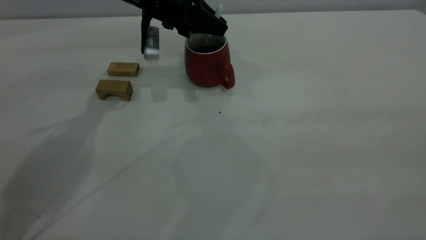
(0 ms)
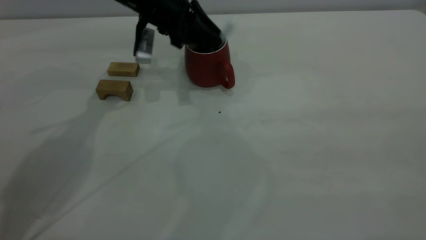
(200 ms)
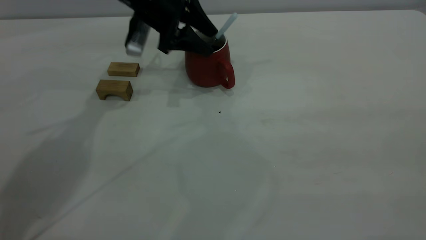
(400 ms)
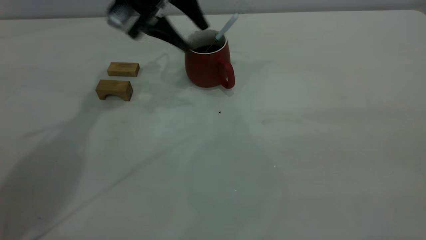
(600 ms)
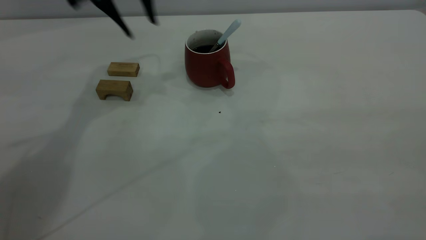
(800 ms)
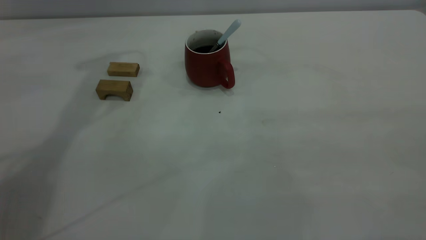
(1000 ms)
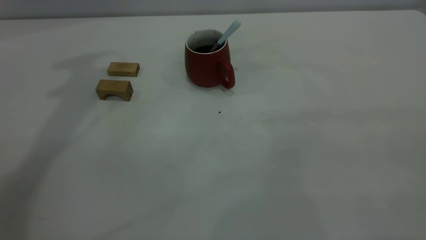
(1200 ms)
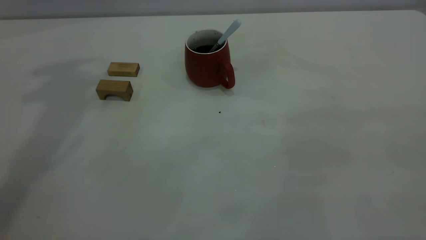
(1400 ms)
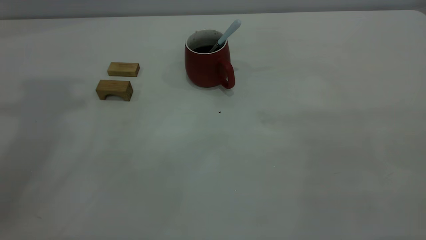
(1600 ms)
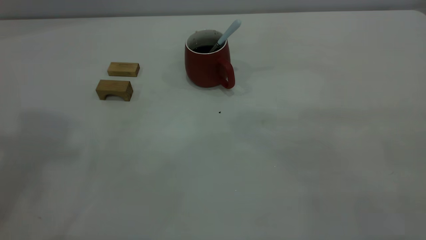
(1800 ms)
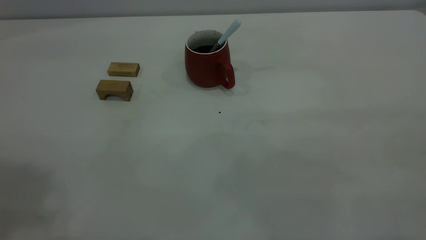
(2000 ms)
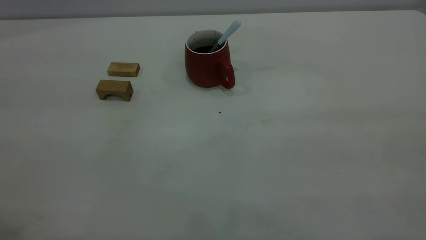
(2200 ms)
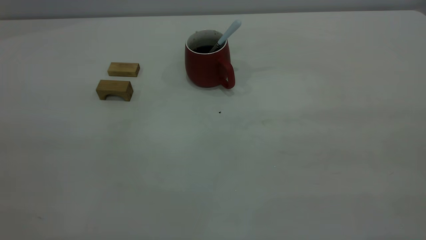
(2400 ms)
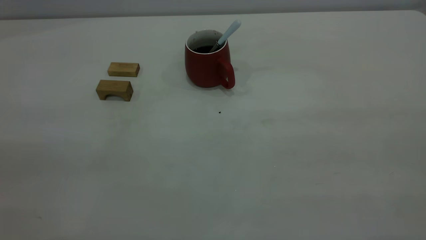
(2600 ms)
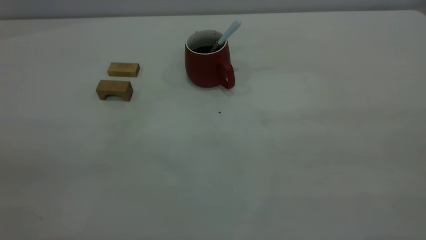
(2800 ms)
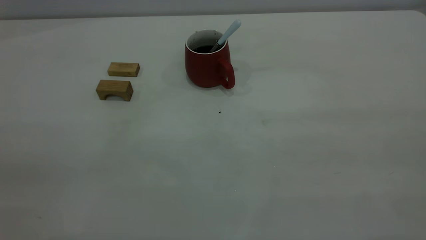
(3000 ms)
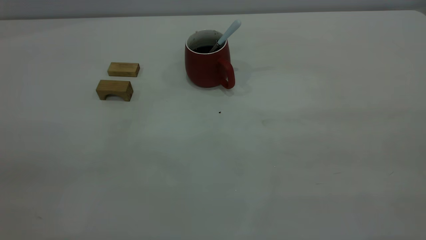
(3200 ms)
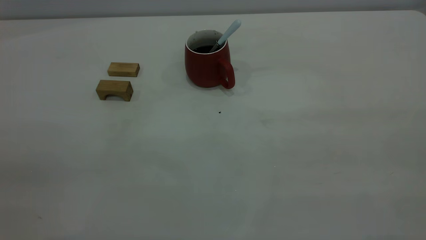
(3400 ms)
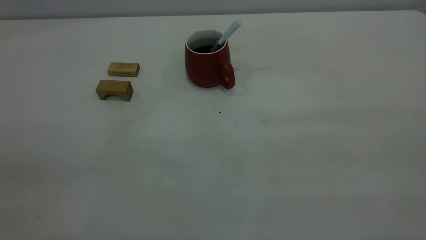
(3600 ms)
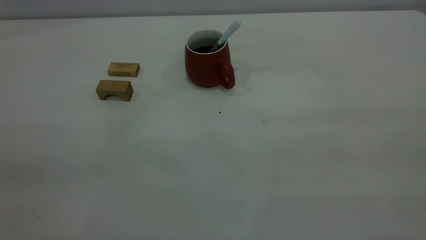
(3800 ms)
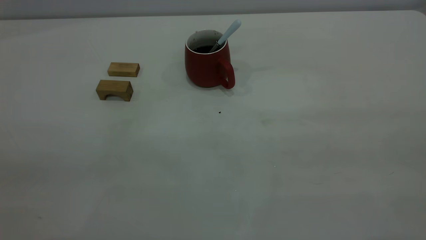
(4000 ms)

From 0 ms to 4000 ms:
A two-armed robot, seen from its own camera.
From 0 ms to 1400 ms: The left gripper goes approximately 35 cm upward, and opens up.

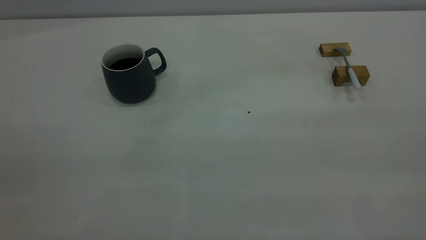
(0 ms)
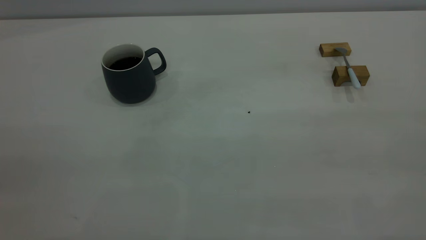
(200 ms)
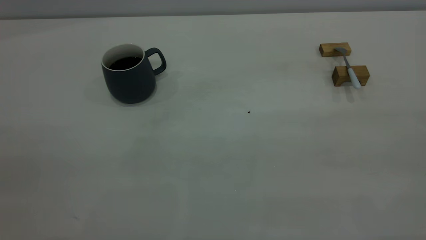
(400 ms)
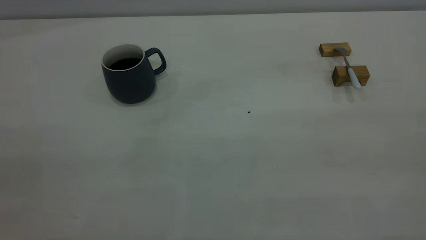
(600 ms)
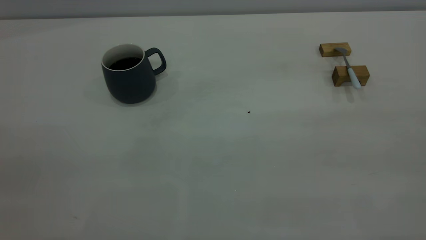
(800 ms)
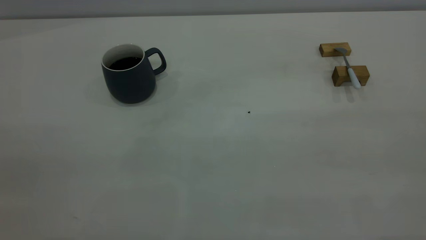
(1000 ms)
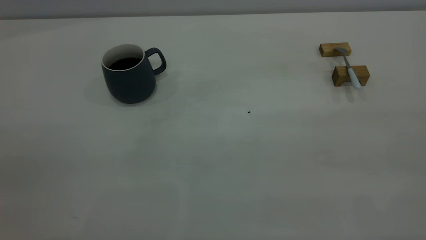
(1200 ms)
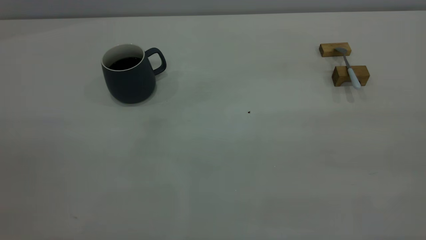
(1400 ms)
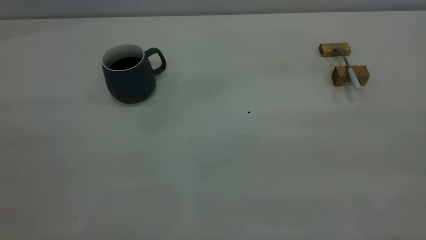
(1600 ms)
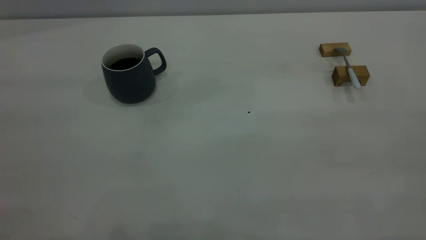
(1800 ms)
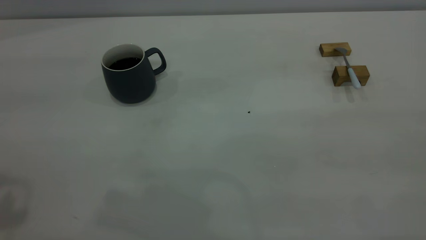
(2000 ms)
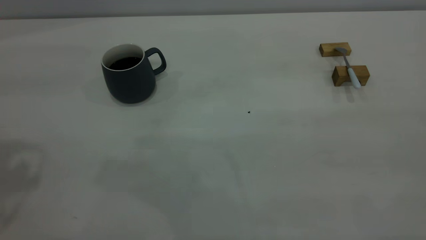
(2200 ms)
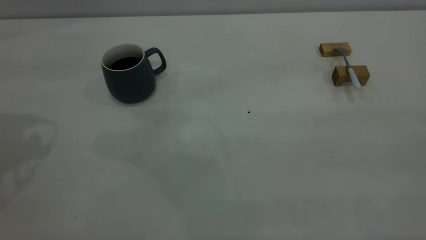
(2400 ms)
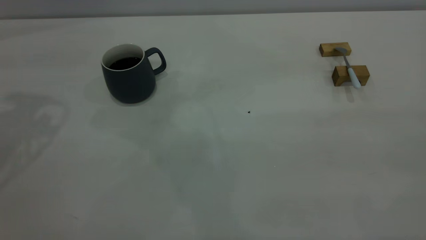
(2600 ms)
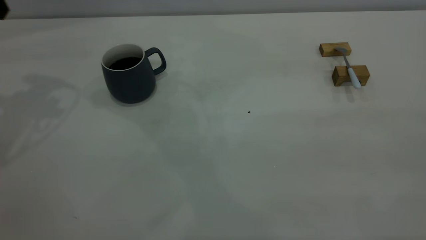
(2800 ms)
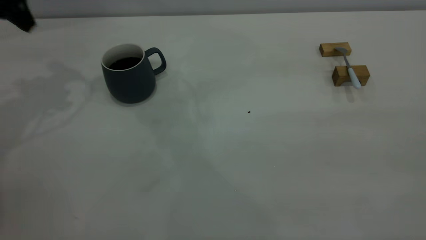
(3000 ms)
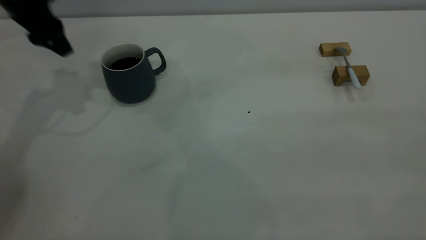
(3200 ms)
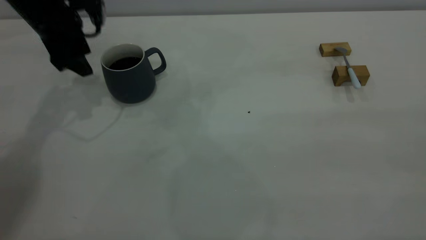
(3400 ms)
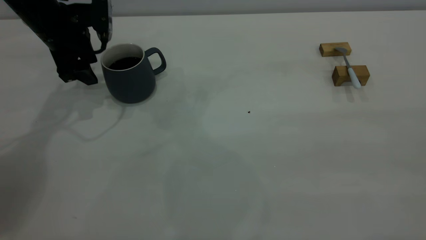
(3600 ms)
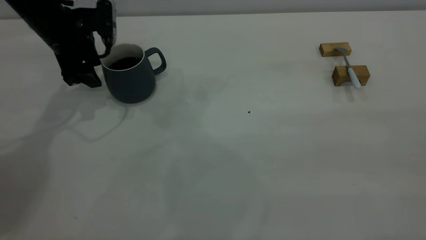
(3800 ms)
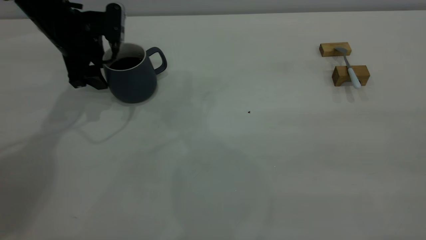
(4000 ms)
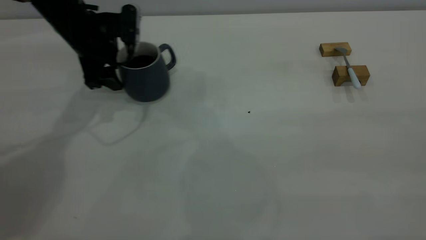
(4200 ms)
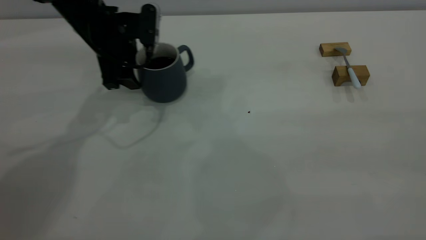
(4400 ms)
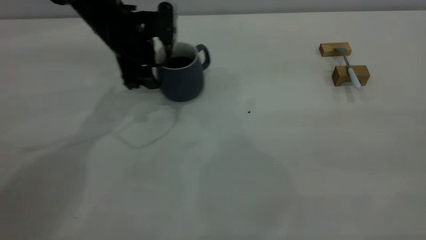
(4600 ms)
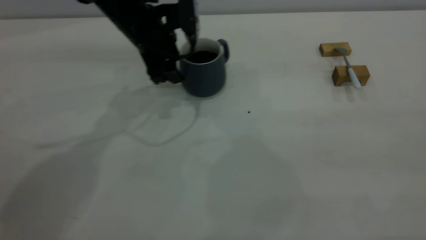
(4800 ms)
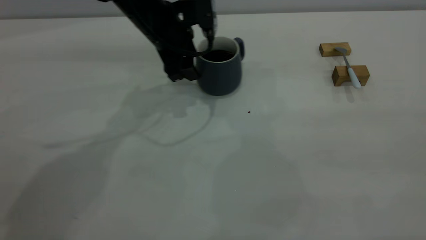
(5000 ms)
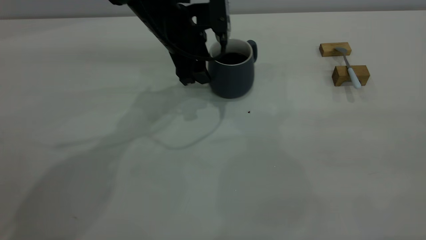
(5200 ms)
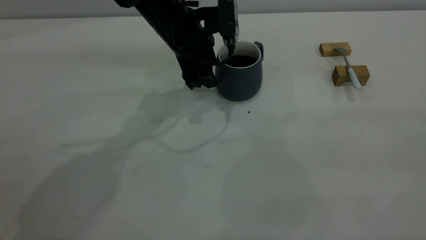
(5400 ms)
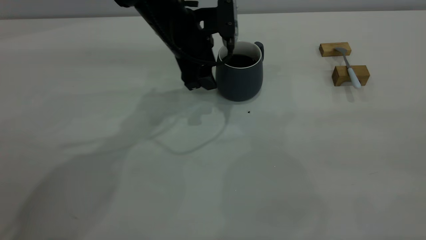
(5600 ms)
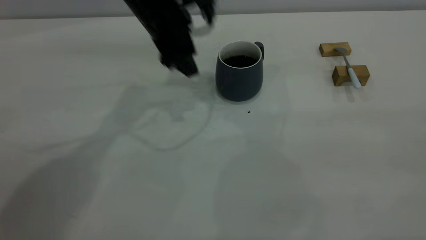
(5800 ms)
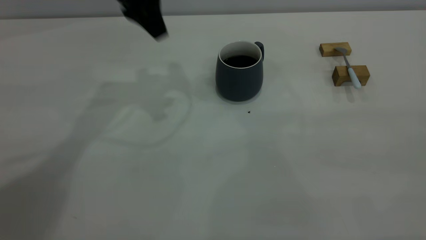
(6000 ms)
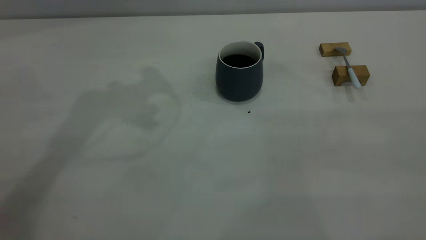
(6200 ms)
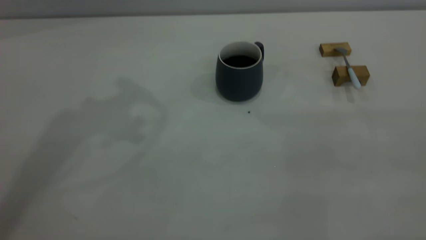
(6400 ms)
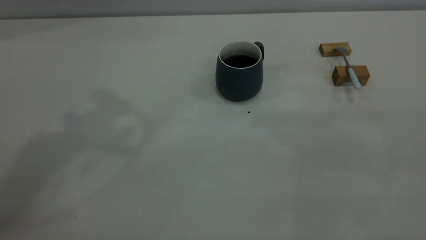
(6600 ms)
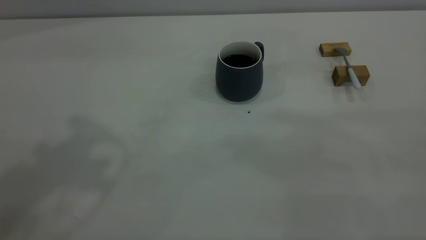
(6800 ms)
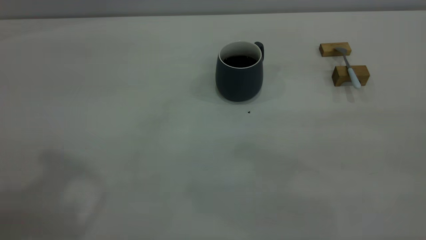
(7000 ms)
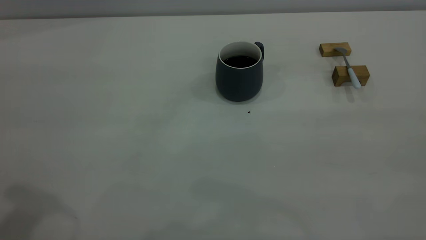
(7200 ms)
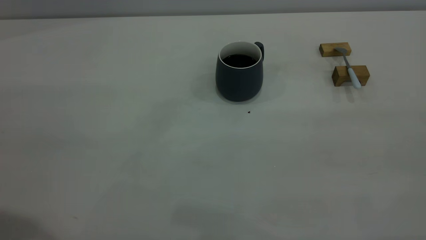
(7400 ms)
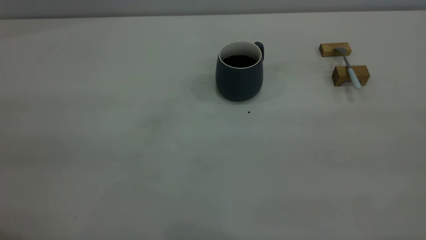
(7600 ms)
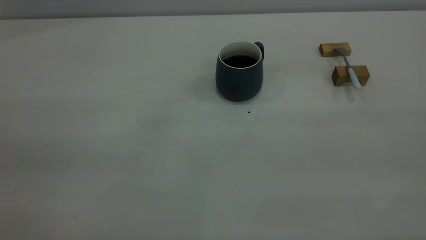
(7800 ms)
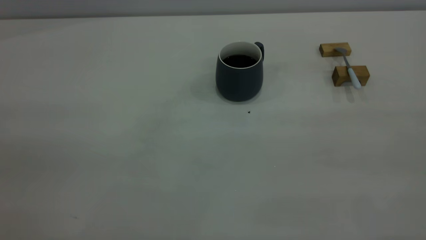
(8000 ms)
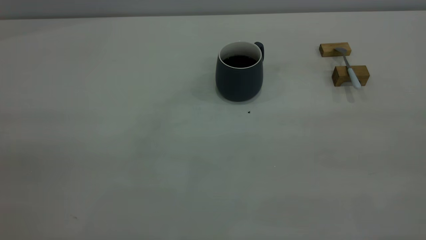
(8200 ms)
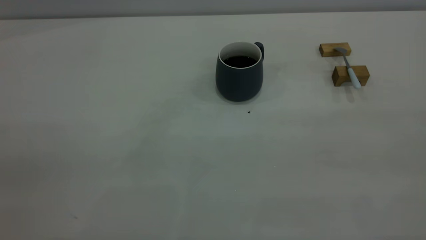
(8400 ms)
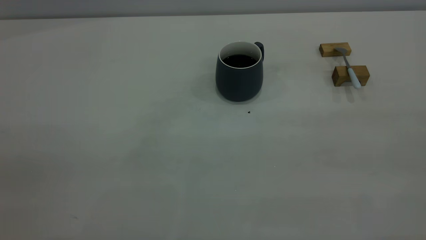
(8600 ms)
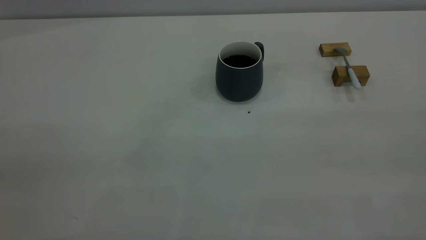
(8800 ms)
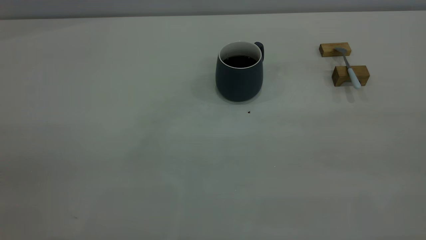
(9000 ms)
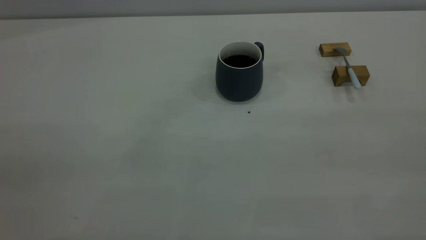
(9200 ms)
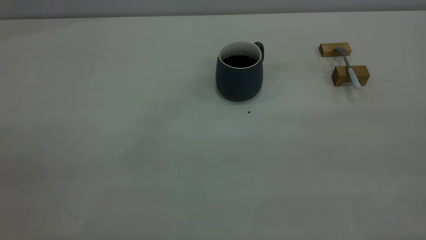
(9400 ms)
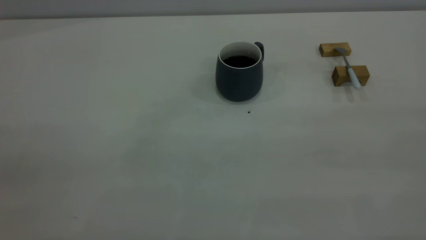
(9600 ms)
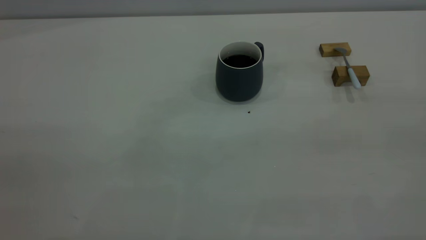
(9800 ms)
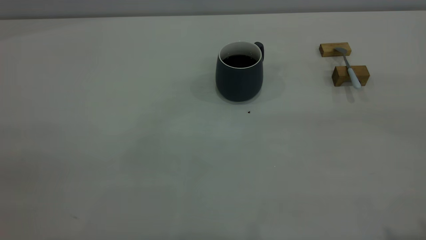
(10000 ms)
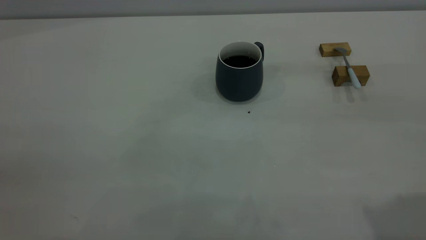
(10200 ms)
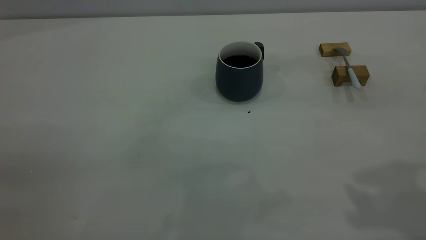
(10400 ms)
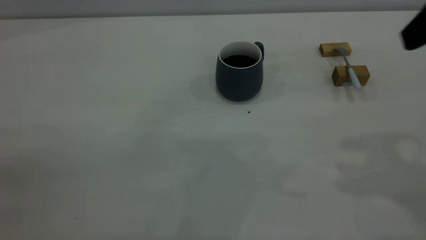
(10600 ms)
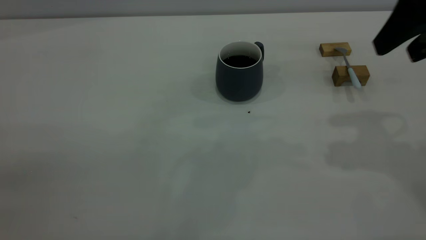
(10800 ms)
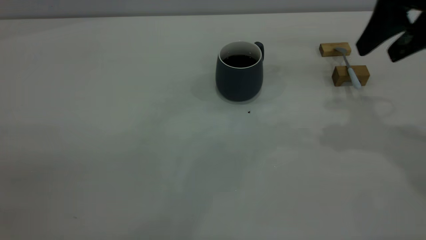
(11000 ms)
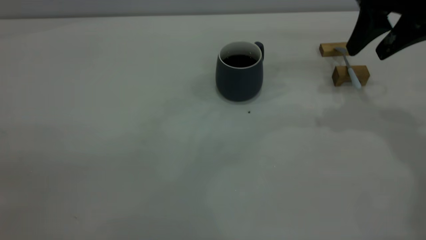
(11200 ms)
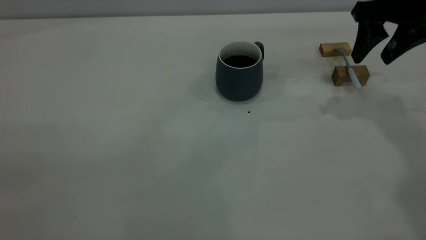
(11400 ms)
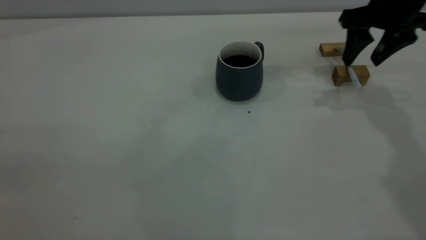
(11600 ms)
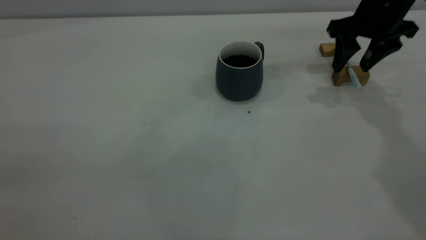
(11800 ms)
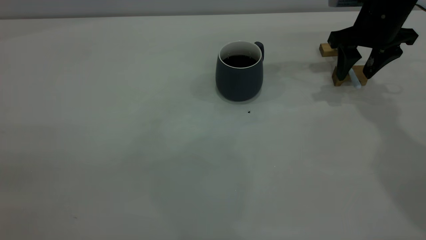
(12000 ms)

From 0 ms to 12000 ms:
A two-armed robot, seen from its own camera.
Step, from 0 ms to 5800 ms: Move the cup with coffee to the center of view.
From 1600 ms to 3000 ms: The left gripper goes about 35 cm forward.
From 3000 ms to 4400 ms: The left gripper travels to the right and downward by some 20 cm.
From 4400 ms to 6000 ms: The left gripper goes some 15 cm upward.
From 6000 ms to 7600 ms: The left gripper travels backward by roughly 35 cm.
From 10400 ms to 12000 ms: The right gripper travels forward and downward by roughly 30 cm.

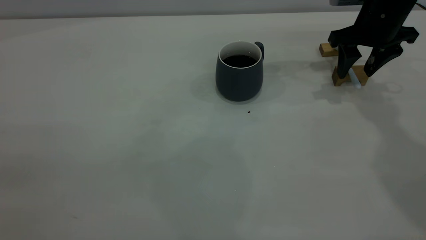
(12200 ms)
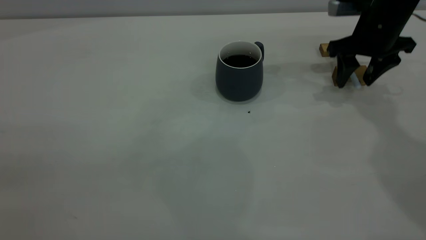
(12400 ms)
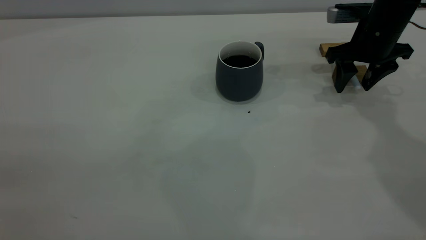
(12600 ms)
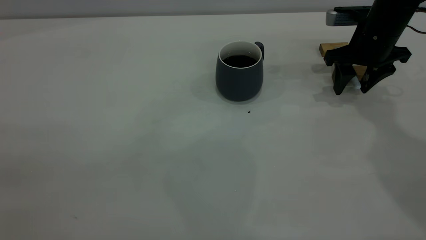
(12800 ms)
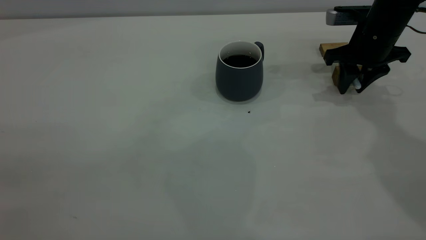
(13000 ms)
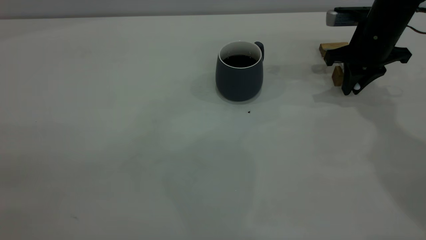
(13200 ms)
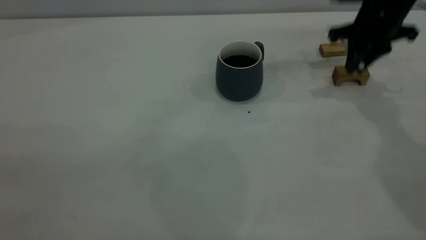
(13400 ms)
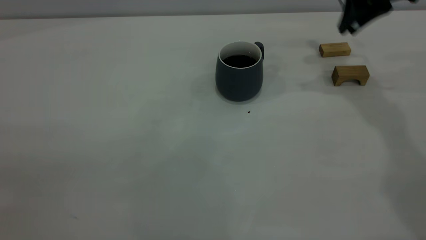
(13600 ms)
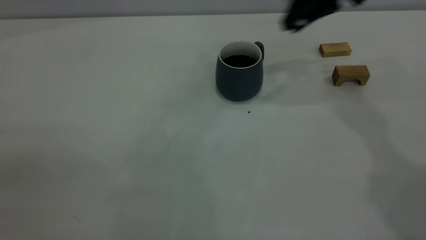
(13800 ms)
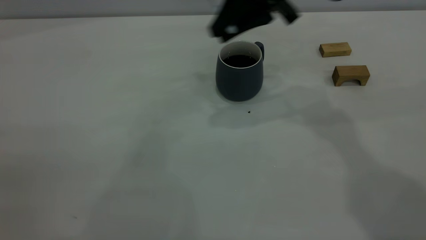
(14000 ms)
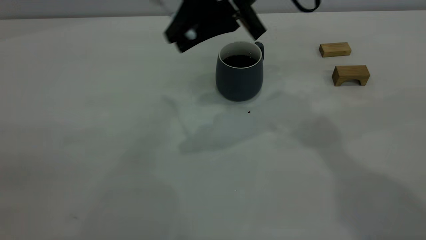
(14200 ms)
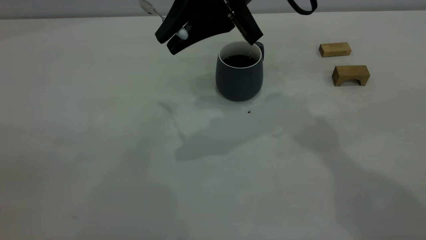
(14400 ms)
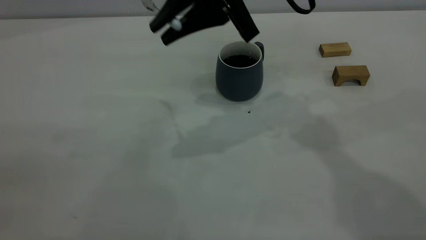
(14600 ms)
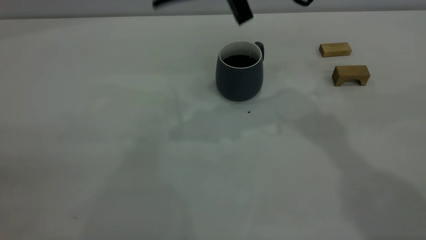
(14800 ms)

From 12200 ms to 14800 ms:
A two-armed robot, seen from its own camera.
From 12200 ms to 13400 ms: The right gripper closes up.
From 13400 ms to 14800 ms: The right gripper heads to the left and upward, covering roughly 20 cm.
